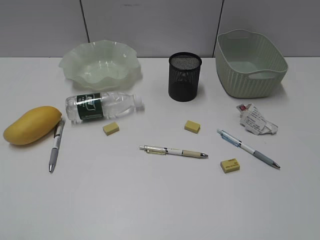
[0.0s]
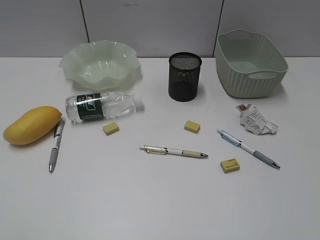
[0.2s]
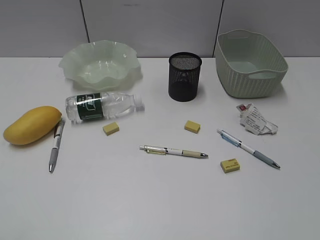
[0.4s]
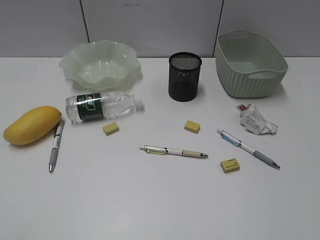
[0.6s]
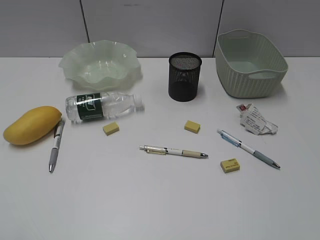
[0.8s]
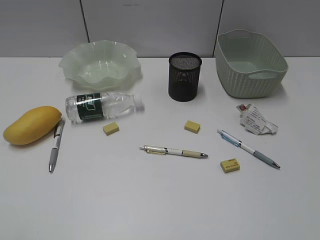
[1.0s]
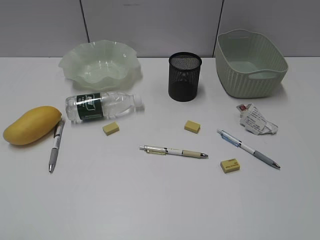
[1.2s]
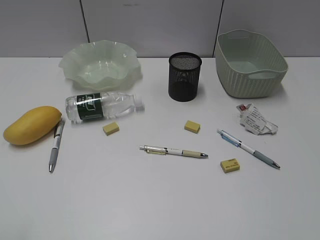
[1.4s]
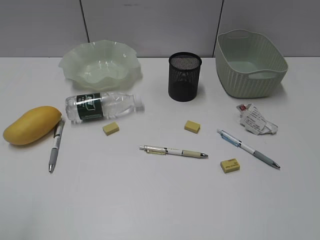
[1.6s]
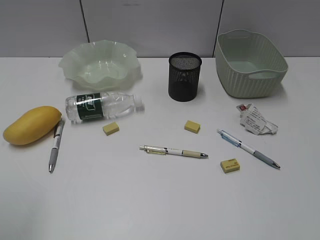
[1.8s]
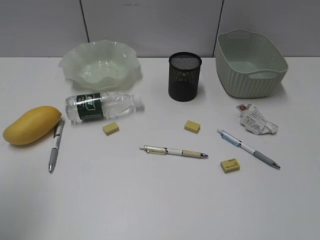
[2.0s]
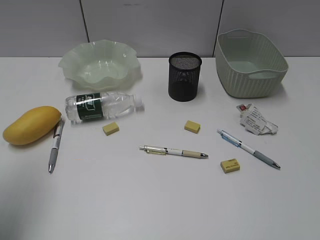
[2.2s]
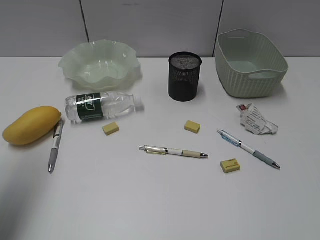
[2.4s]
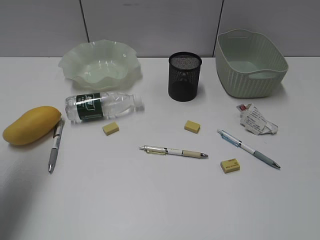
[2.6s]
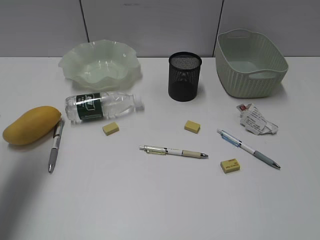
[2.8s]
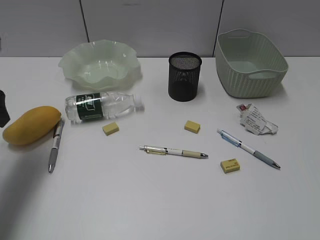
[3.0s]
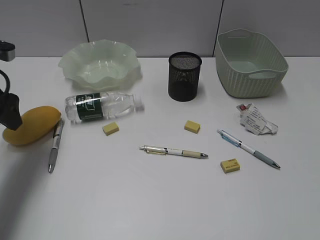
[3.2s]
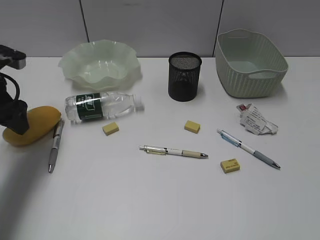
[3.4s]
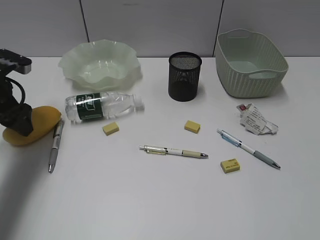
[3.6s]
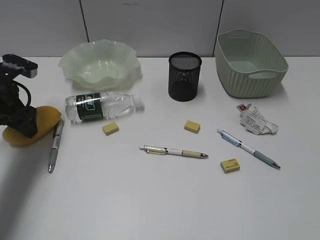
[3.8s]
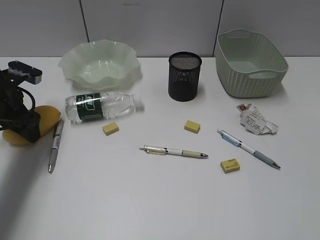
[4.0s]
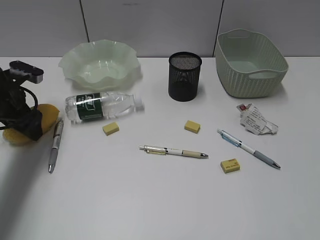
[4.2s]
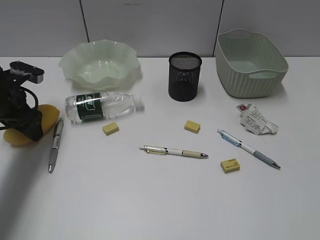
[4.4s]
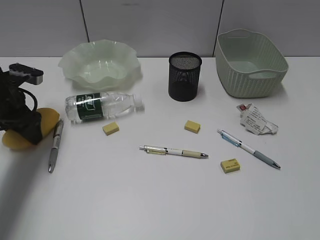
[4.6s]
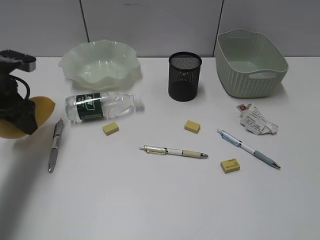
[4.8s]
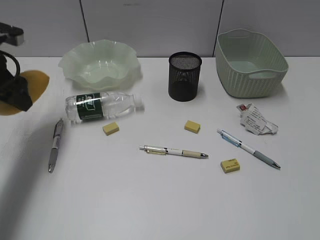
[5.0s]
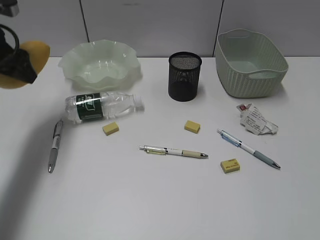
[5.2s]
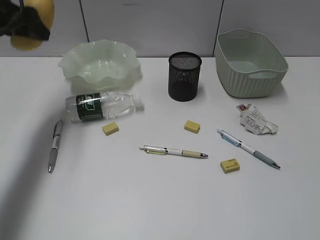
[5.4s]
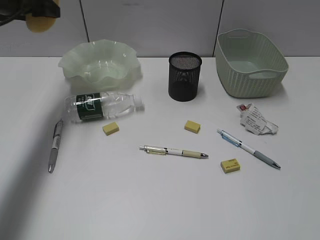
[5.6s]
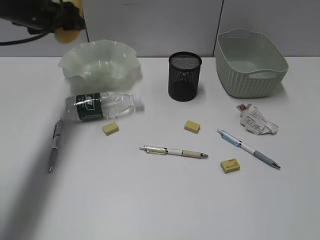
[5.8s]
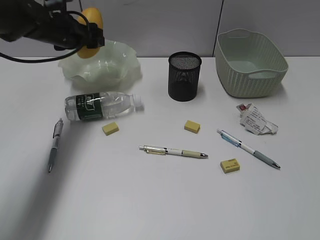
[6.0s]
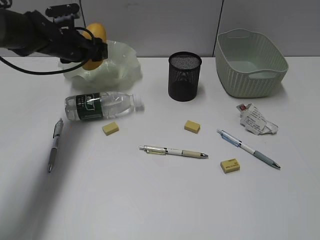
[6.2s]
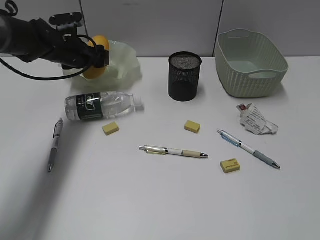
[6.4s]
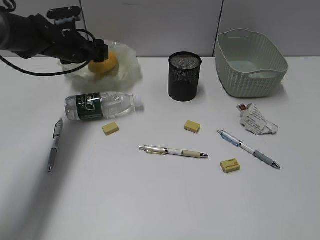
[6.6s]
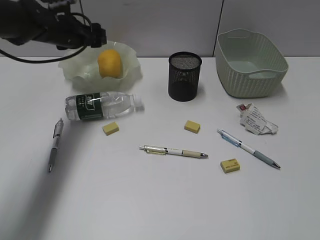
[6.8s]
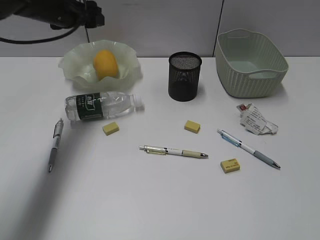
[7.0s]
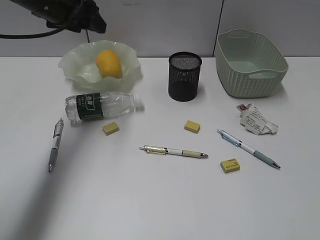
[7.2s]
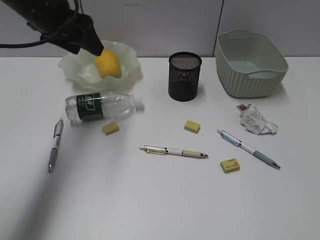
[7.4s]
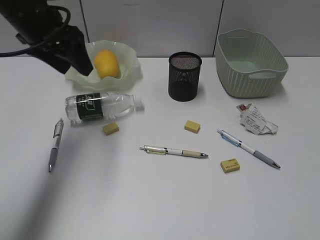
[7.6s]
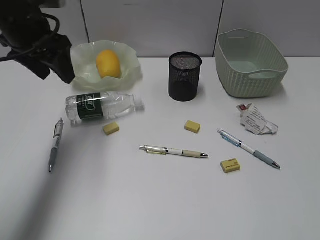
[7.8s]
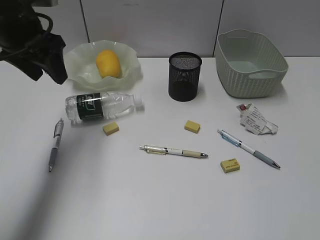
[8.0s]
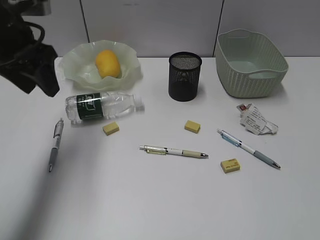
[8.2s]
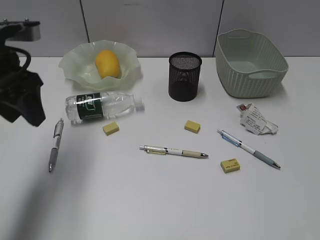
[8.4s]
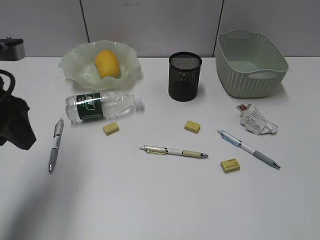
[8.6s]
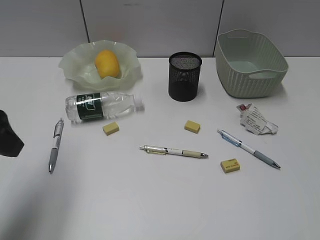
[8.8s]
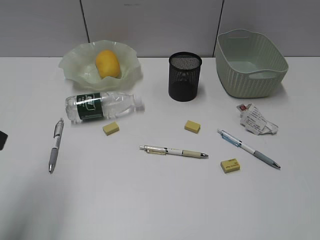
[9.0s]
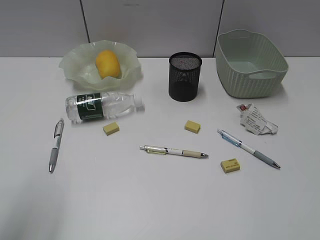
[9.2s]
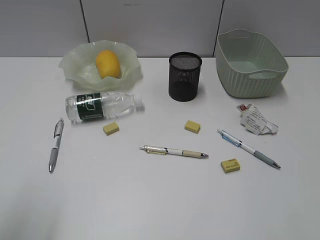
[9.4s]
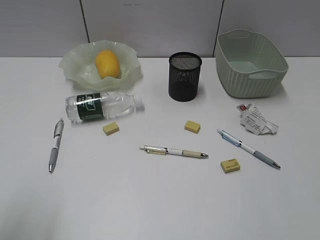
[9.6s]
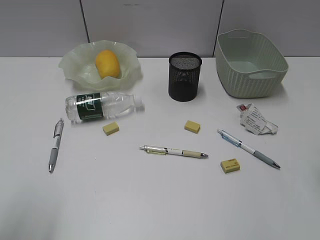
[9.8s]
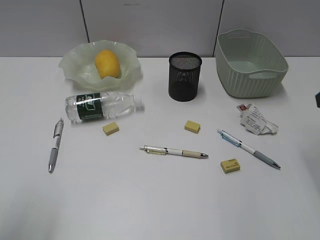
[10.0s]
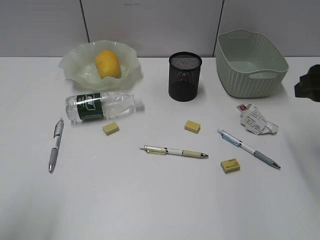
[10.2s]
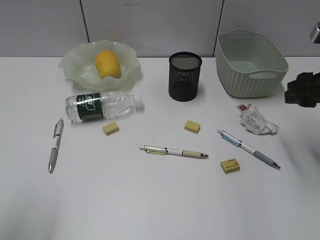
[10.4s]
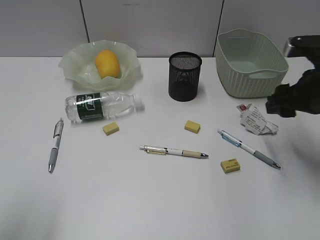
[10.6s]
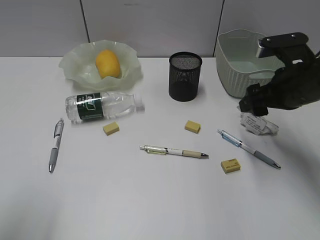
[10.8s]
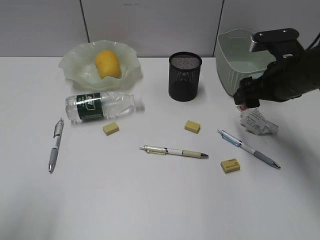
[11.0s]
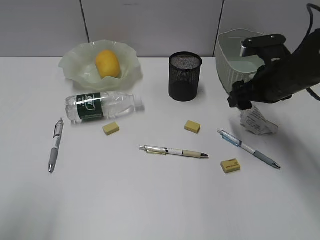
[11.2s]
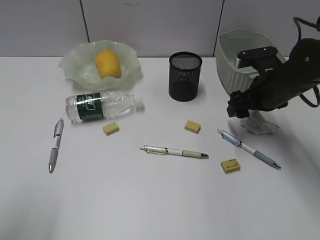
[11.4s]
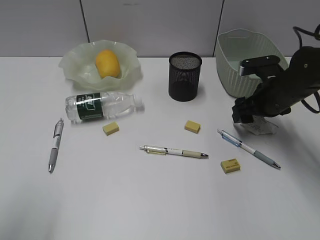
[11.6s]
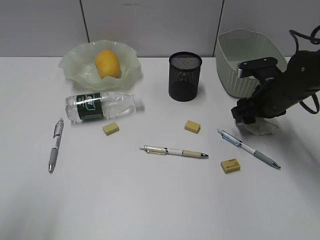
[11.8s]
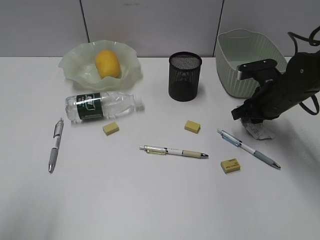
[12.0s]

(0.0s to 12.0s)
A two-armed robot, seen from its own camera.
Step, 3.0s - 4.4s: Grasp the mango with left gripper.
Step, 4.6s - 6.6s: Place the mango in the plate with left gripper.
1.6s - 3.0s: The left gripper moves forward, about 25 cm.
3.0s - 4.4s: The left gripper heads downward and forward, covering some 10 cm.
4.4s - 6.0s: The left gripper travels forward and to the right by approximately 15 cm, and goes upward and returns, some 15 cm each way.
6.0s - 7.6s: The left gripper goes some 15 cm backward and upward.
7.6s - 9.0s: The left gripper heads backward, covering approximately 20 cm.
9.0s - 10.4s: The left gripper travels backward by approximately 5 cm. Meanwhile the right gripper travels forward by some 25 cm.
10.4s - 12.0s: The right gripper shifts approximately 15 cm downward and forward, and closes up.

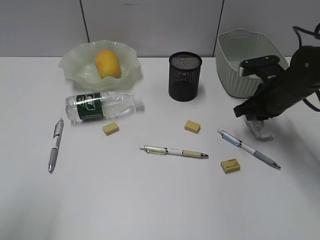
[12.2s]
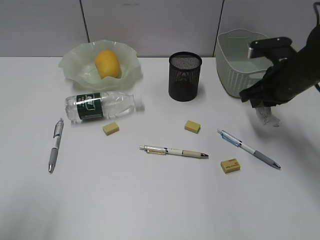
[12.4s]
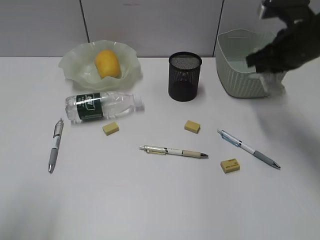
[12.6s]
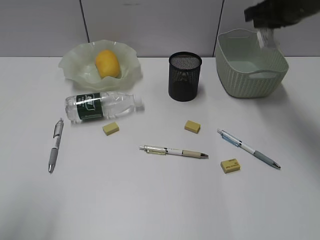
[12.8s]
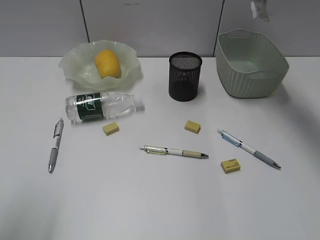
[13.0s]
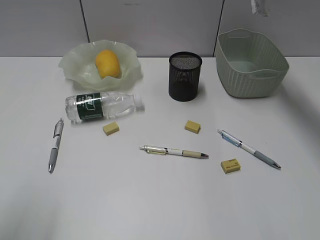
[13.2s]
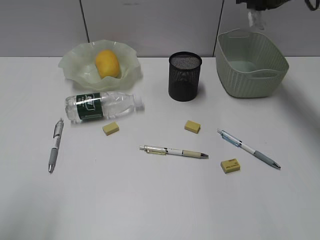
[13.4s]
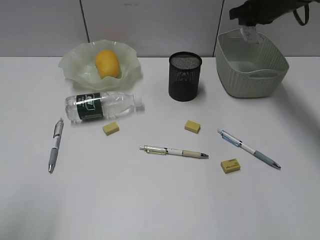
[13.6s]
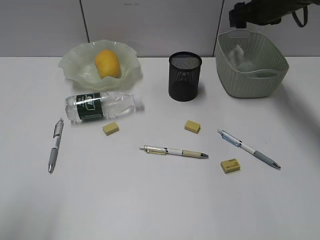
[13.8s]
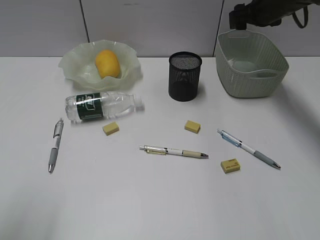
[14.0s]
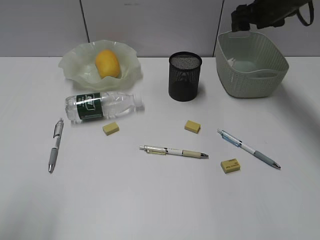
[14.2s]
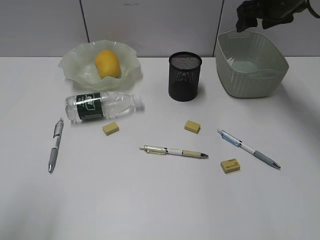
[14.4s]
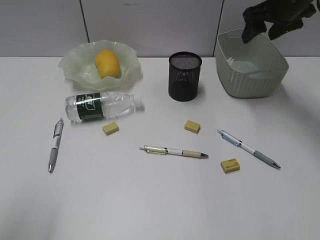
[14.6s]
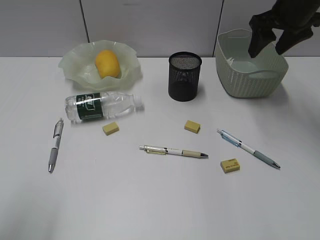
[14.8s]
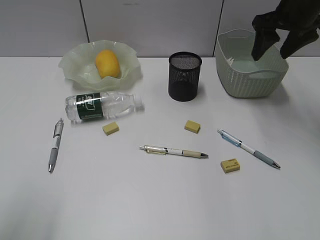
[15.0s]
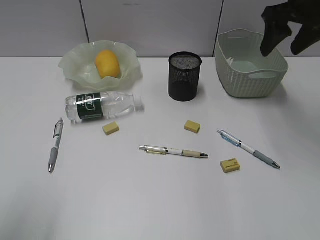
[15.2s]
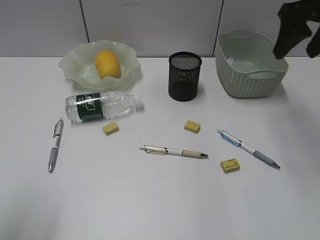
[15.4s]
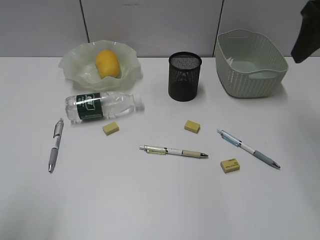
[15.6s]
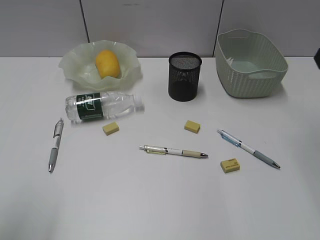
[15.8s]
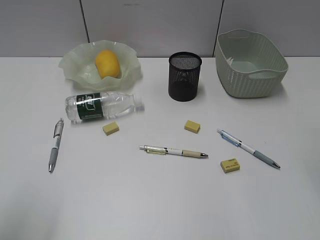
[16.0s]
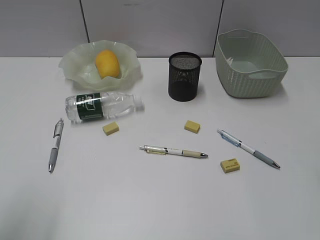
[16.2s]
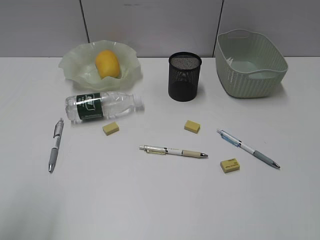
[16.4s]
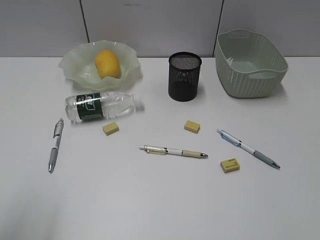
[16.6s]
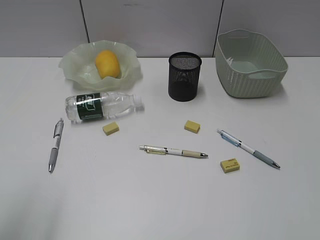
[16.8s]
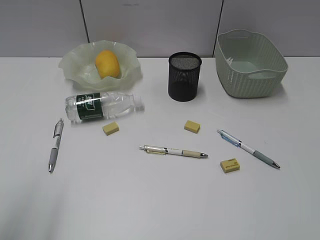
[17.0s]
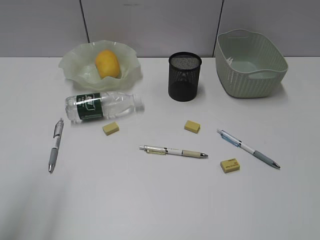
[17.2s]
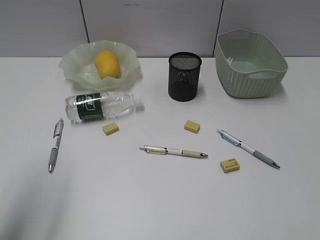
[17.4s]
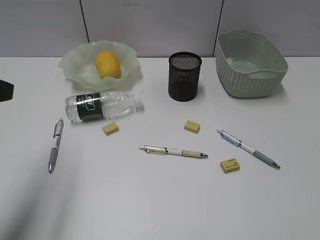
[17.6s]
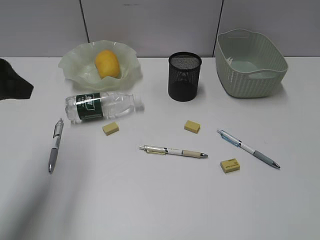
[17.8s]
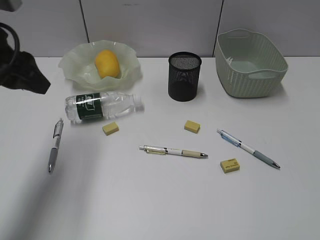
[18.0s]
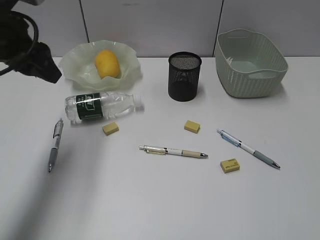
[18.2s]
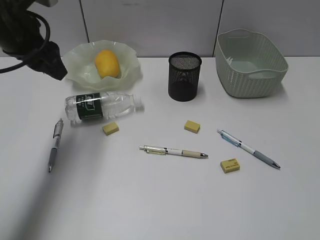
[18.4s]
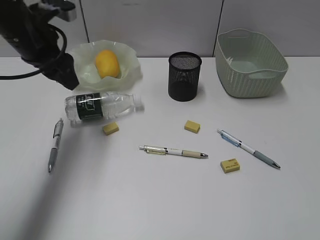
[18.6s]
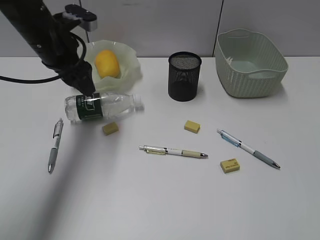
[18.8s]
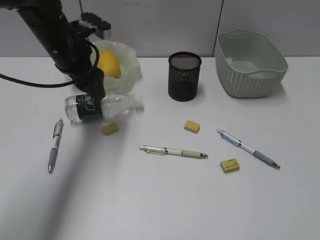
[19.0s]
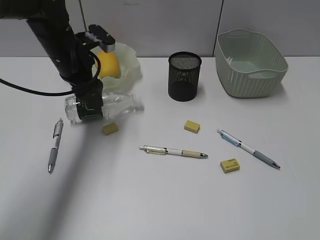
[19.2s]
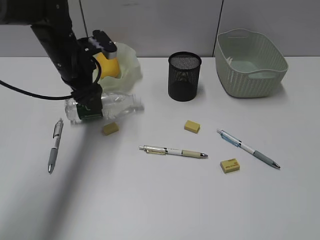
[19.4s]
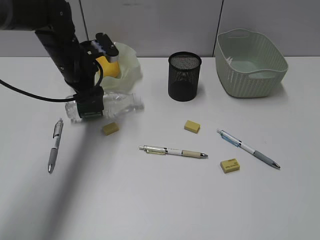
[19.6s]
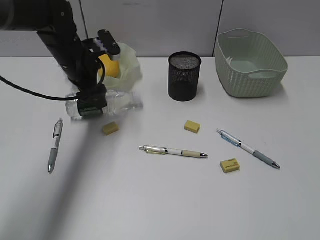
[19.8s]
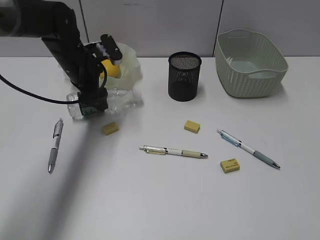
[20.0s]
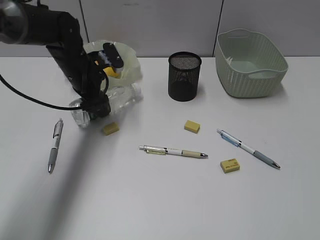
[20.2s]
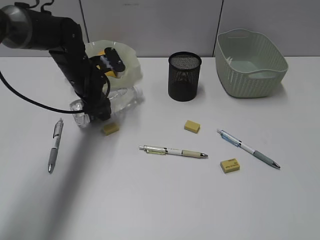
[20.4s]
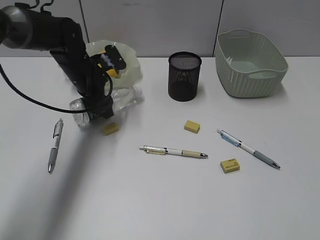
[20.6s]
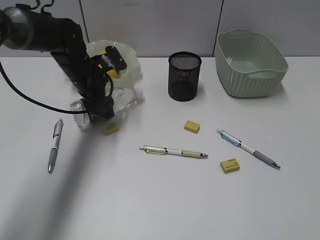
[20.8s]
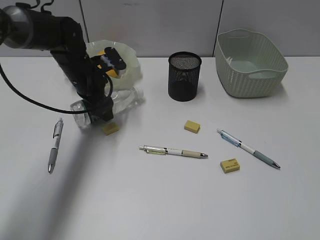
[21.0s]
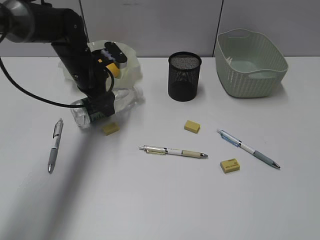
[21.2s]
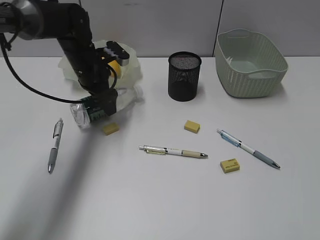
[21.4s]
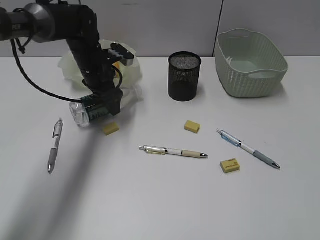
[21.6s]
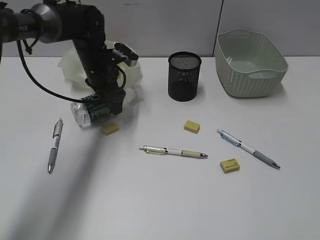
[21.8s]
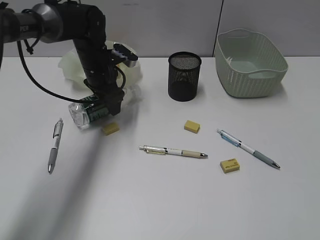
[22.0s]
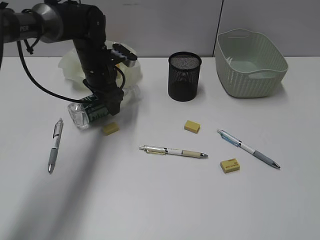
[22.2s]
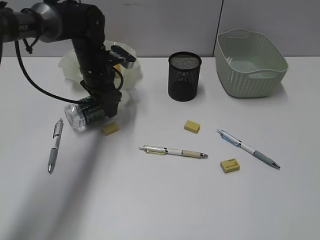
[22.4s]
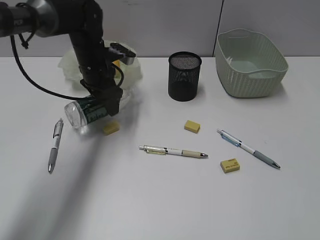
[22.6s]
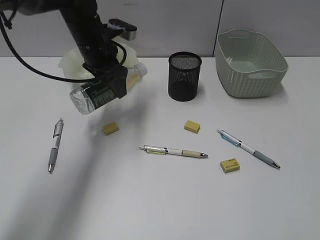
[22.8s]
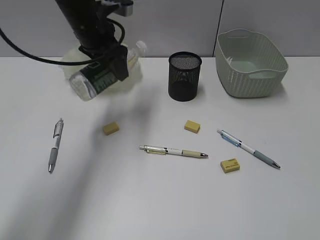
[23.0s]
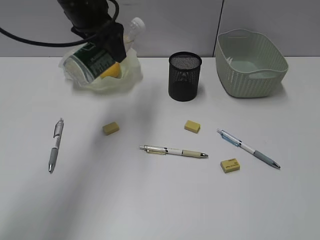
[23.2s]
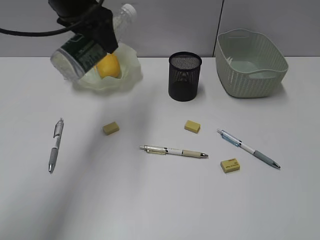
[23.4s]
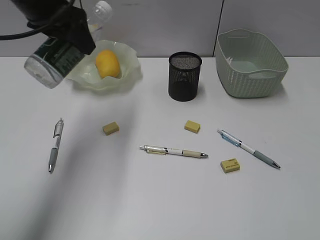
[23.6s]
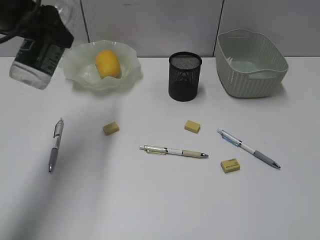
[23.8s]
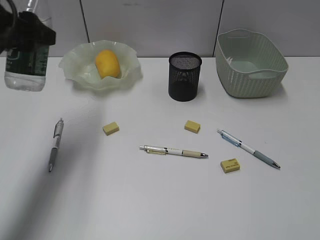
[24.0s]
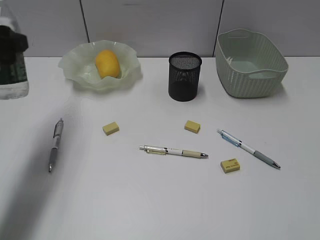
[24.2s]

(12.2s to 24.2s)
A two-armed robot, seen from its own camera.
Step, 12.4s - 13.8s: Place the waste paper in the basket with right gripper.
Step, 14.0s - 22.4s: Grasp the bottle with left gripper.
12.2s - 13.8s: The right gripper travels forward and upward by some 20 cm, and opens up.
13.8s - 15.2s: The right gripper moves backward and upward, roughly 15 cm.
15.2s - 16.6s: The right gripper shifts roughly 30 cm backward.
16.6s - 18.2s: The left gripper travels forward by roughly 25 cm.
18.2s - 19.8s: The left gripper goes approximately 15 cm downward, forward and to the right.
19.8s - 21.2s: The grippers stay close to where they were, moving slightly.
21.2s - 22.6s: The grippers make only small movements.
22.6s - 24.2s: The left gripper travels backward, to the left and upward by approximately 25 cm.
